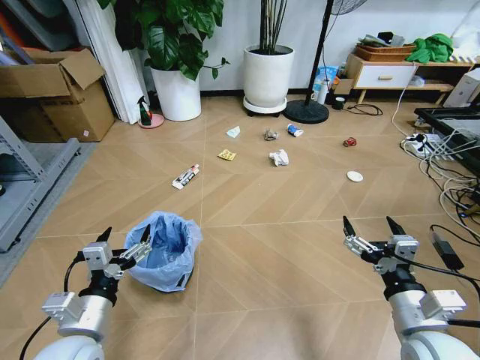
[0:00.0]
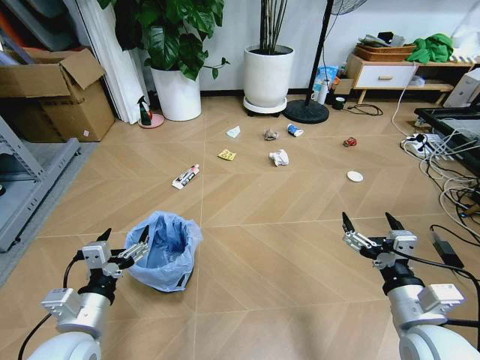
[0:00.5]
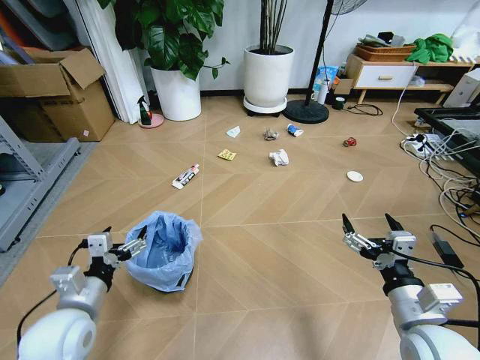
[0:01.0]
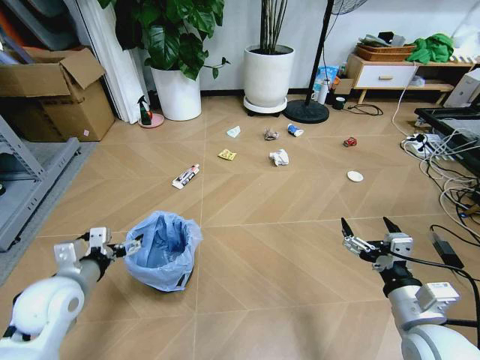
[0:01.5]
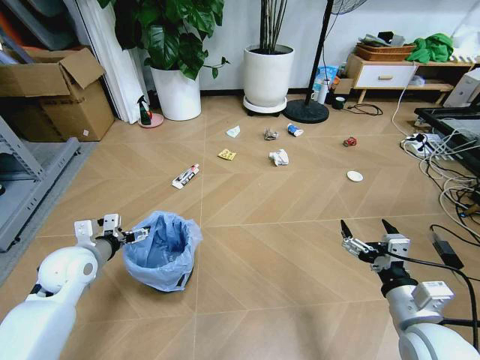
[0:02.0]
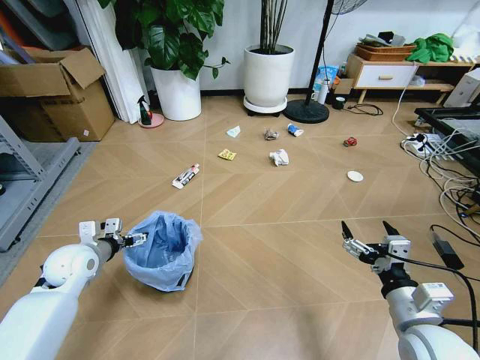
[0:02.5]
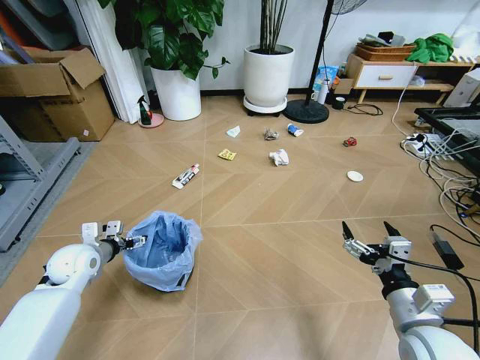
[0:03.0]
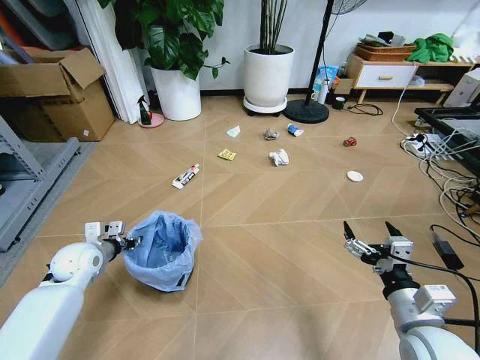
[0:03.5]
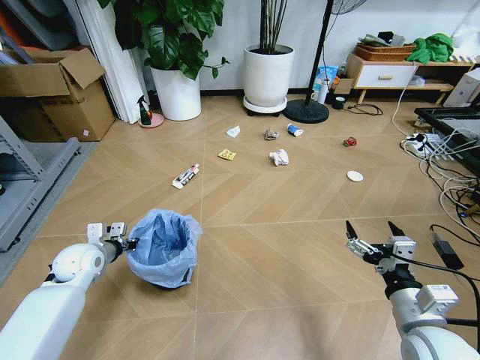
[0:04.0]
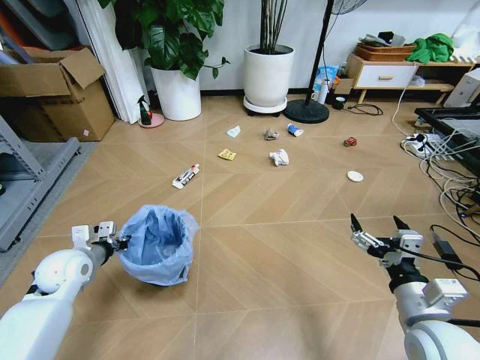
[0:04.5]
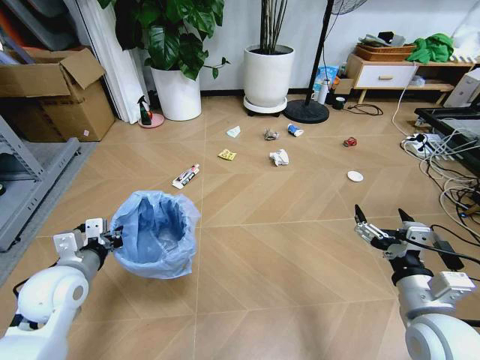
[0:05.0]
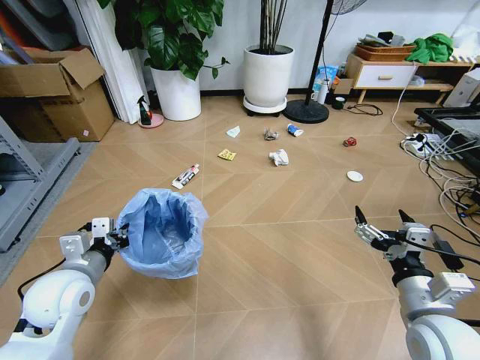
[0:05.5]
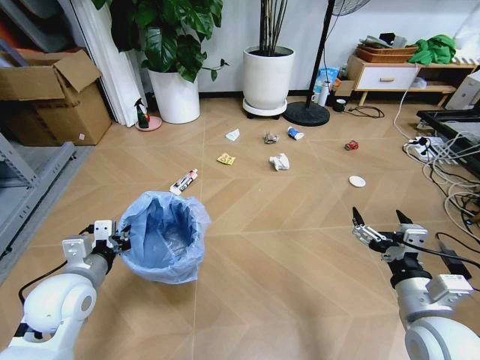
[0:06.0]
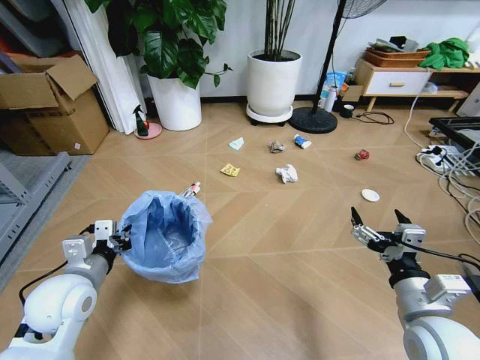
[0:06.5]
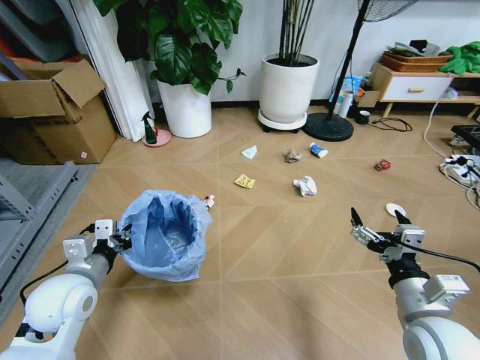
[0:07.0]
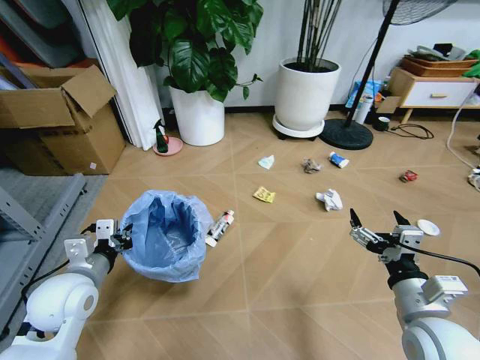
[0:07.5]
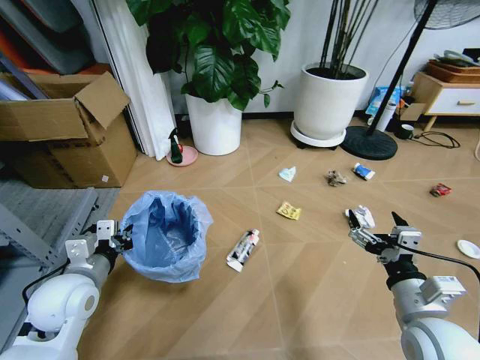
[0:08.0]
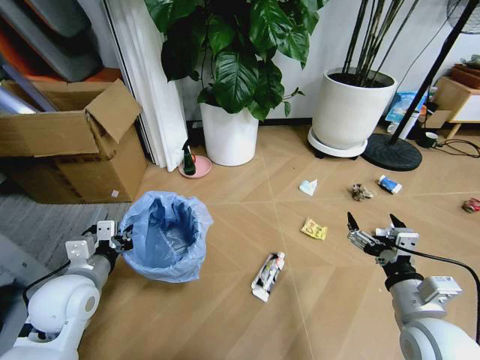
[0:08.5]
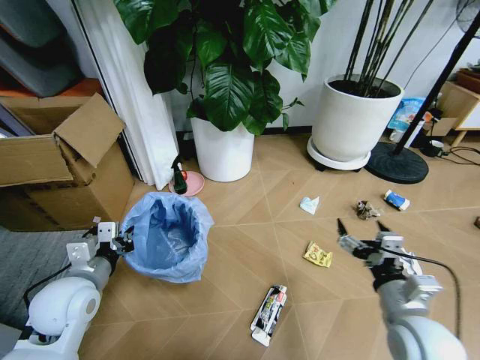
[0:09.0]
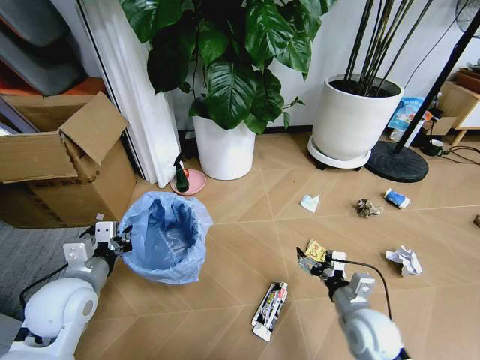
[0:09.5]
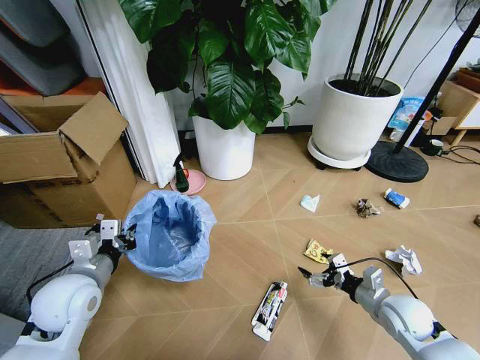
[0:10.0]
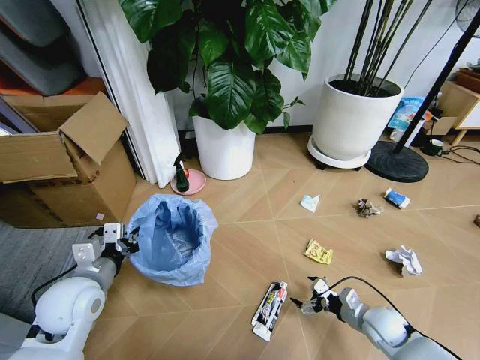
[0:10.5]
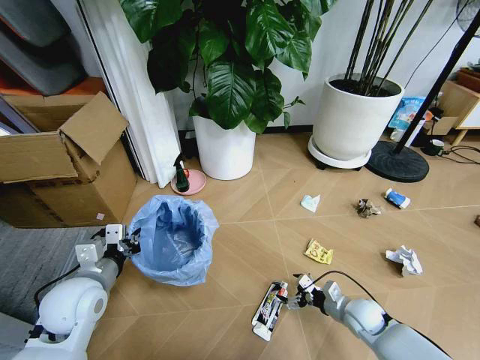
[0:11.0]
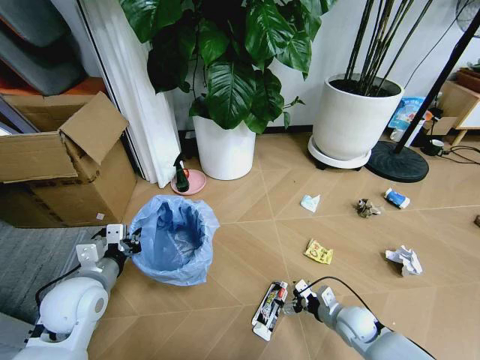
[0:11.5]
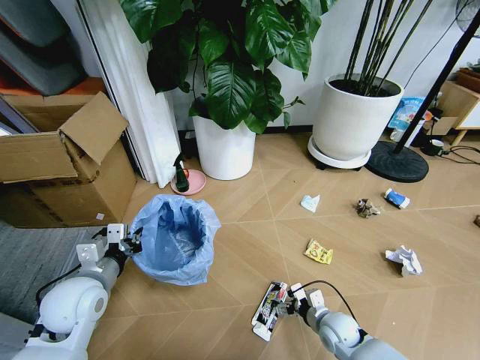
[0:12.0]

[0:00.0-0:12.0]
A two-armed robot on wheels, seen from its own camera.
Task of the whole recording: Pick up the trash bin and place the garbage on the floor into it.
0:02.0 to 0:04.0: The left gripper is displaced downward by roughly 5 cm, and closes its fingers.
0:04.0 to 0:06.0: The left gripper is displaced backward, upward and to the right by some 15 cm.
0:08.0 to 0:10.0: The right gripper goes roughly 15 cm downward, forward and to the right.
0:10.0 to 0:12.0: The right gripper shifts about 15 cm downward and to the left.

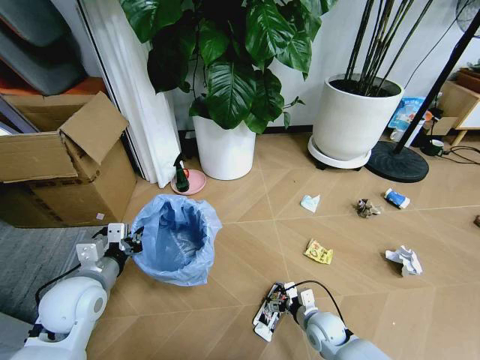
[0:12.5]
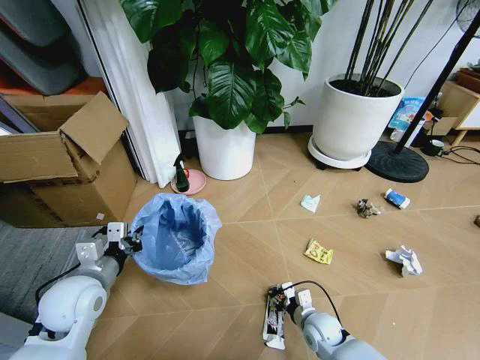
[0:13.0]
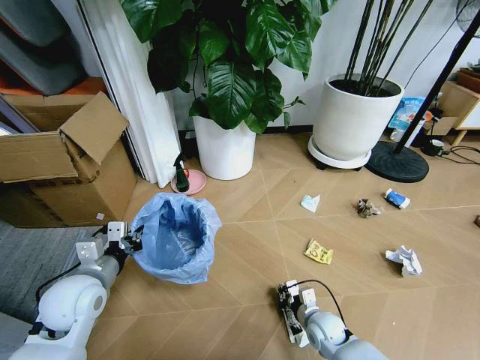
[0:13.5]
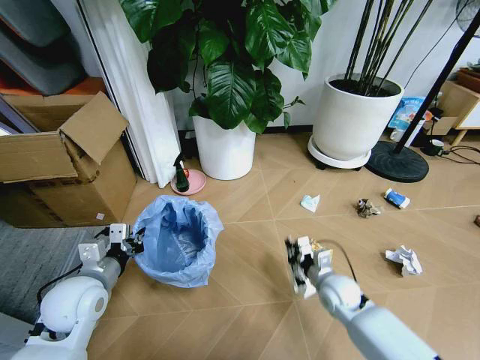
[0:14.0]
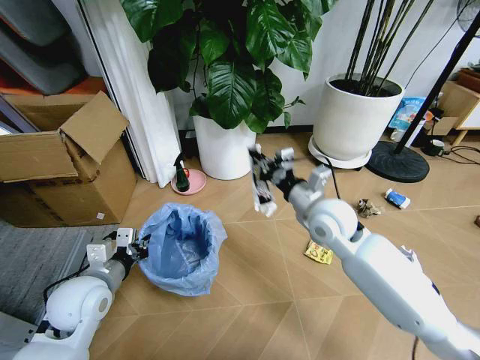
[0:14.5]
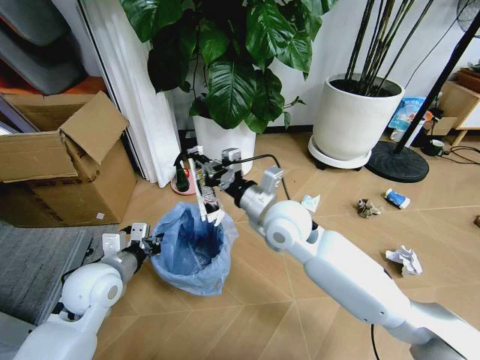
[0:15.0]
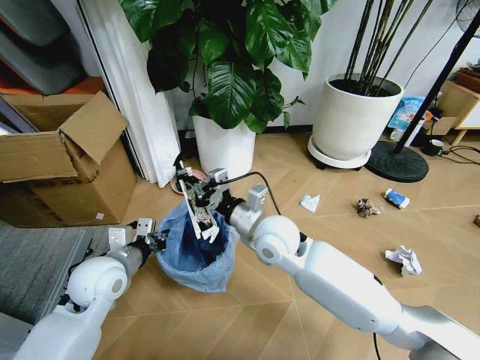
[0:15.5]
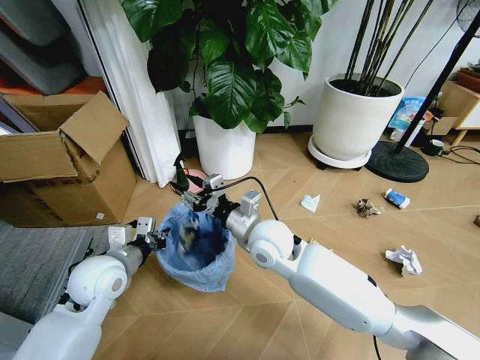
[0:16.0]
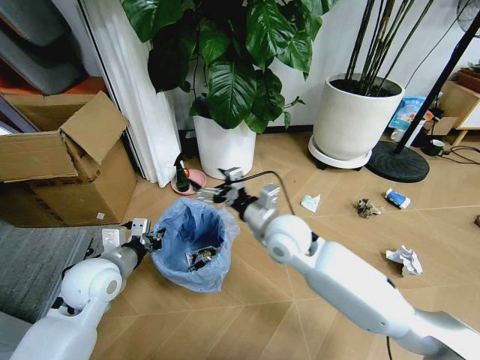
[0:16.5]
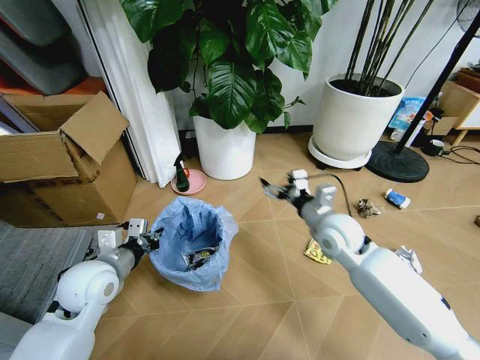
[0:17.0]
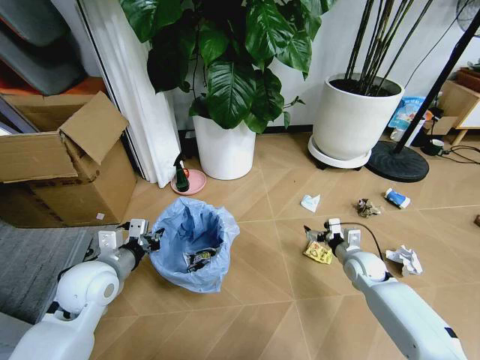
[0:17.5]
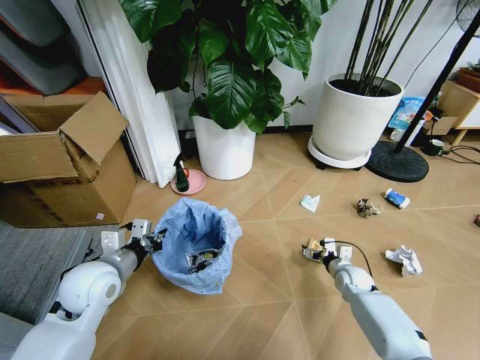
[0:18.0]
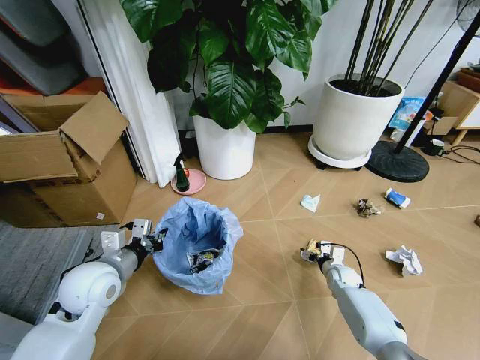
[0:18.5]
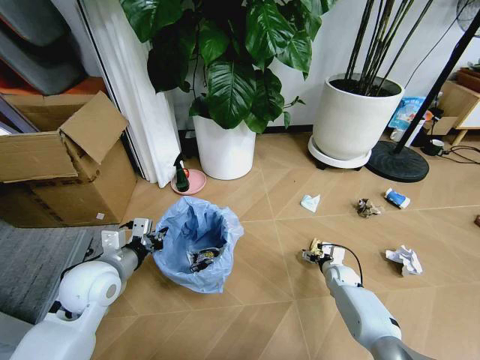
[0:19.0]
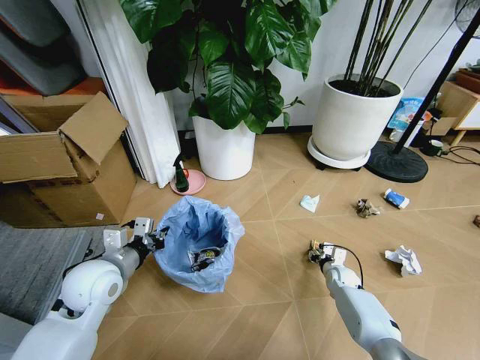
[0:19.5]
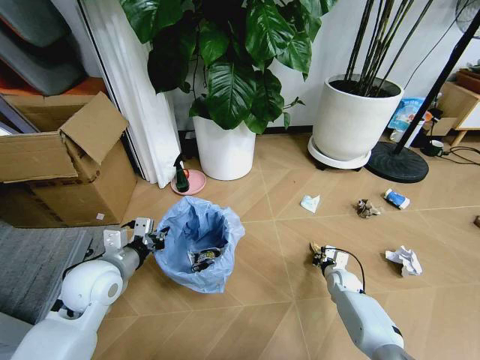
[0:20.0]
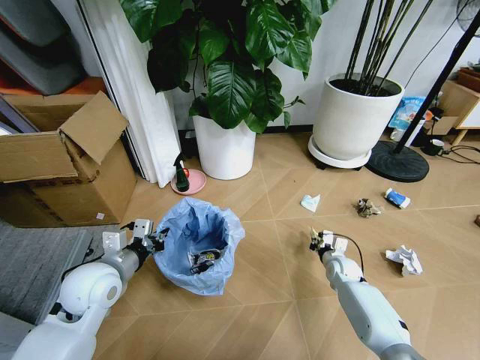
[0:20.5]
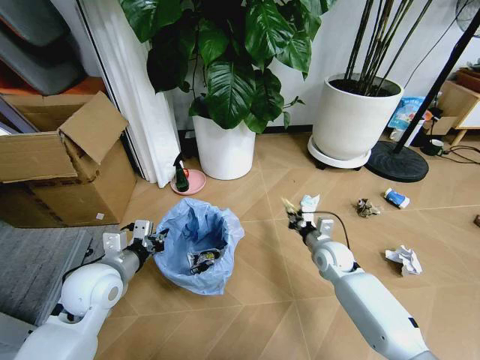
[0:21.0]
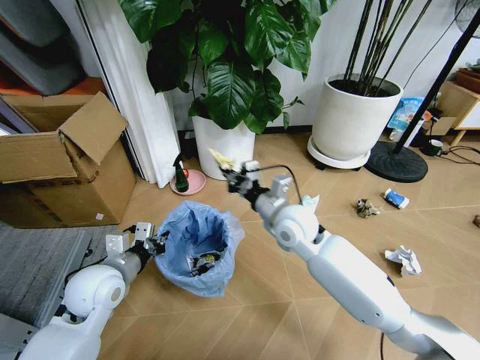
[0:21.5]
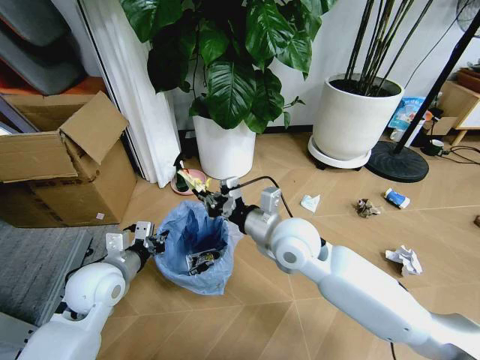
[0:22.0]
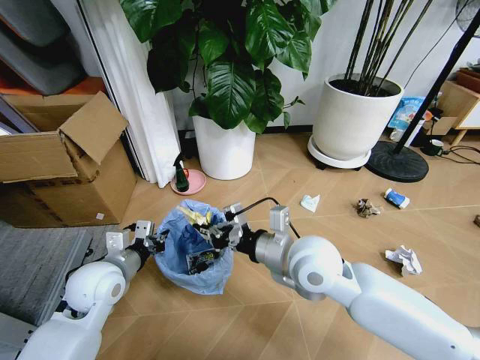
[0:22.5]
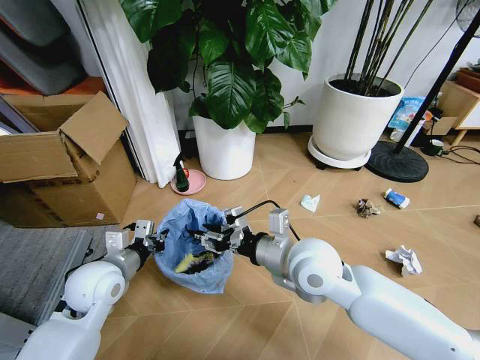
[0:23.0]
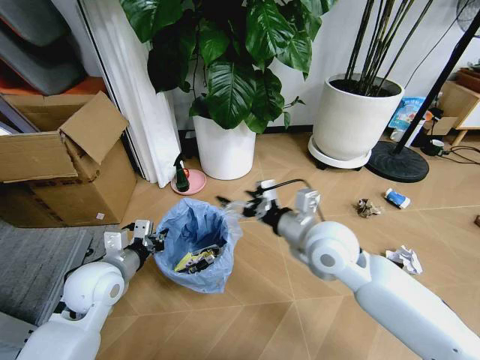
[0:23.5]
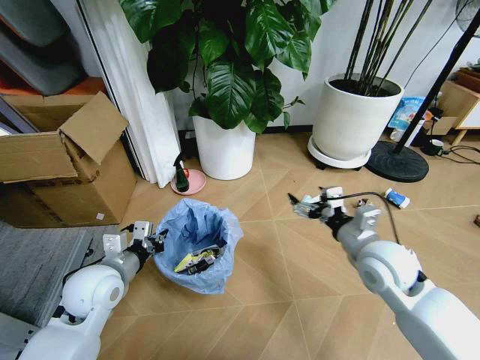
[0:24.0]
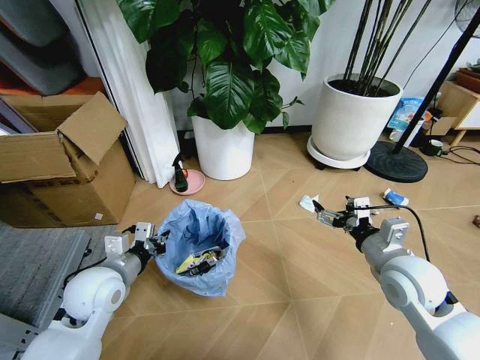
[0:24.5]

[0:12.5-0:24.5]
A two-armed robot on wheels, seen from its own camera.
Task of the whole recording: Pick up the trash bin and place the garbage on the floor into it.
0:12.5 to 0:14.5: The right gripper travels upward and forward by approximately 35 cm, and closes its fingers.
0:14.5 to 0:16.5: The right gripper travels to the left by approximately 10 cm, and opens its fingers.
0:16.5 to 0:18.5: The right gripper heads downward and to the right, covering roughly 40 cm.
0:18.5 to 0:20.5: The right gripper closes up.
0:20.5 to 0:22.5: The right gripper heads upward and to the left, covering approximately 35 cm.
0:22.5 to 0:24.5: The right gripper goes about 20 cm to the right, and opens up.

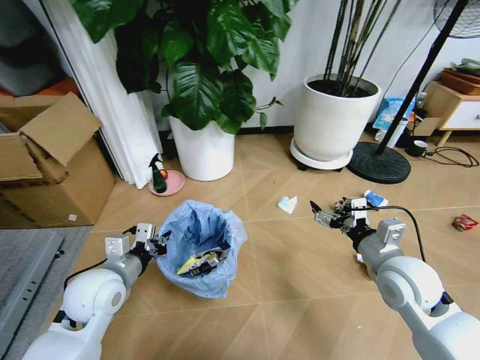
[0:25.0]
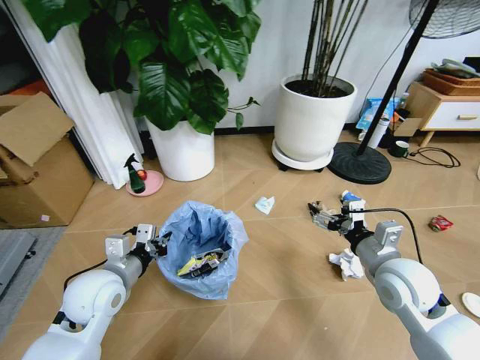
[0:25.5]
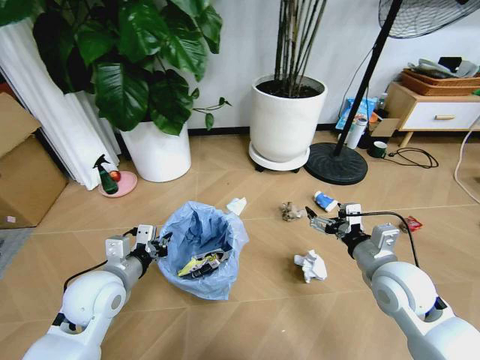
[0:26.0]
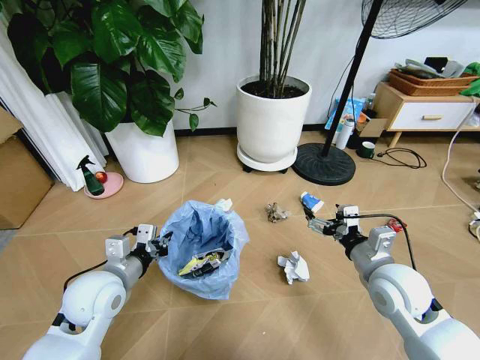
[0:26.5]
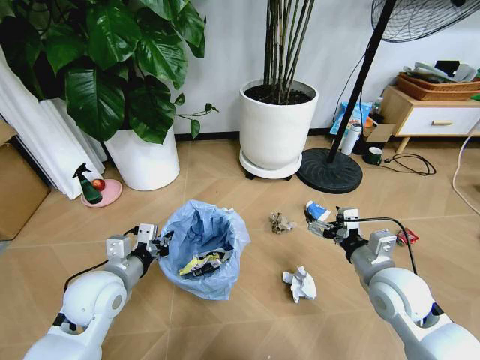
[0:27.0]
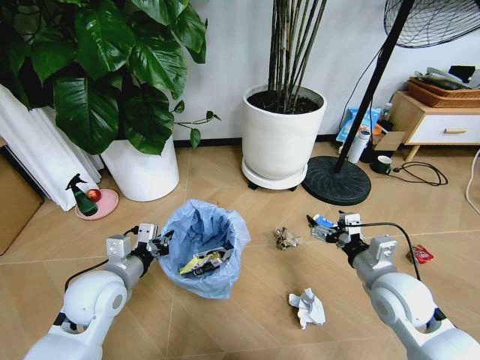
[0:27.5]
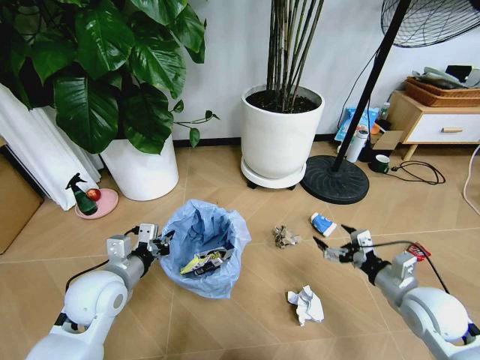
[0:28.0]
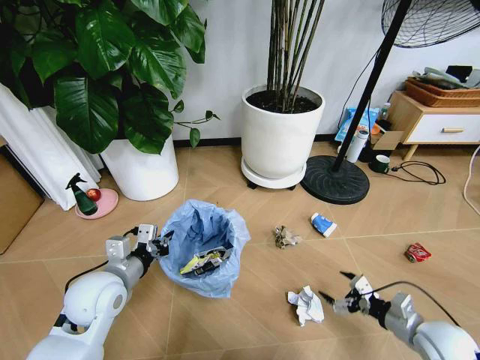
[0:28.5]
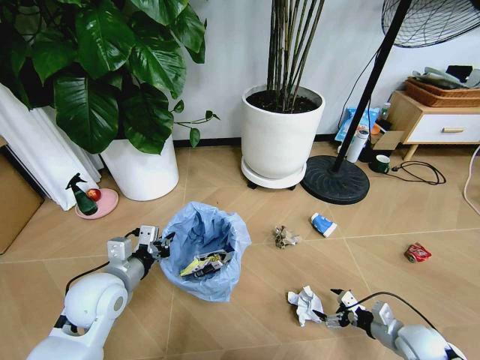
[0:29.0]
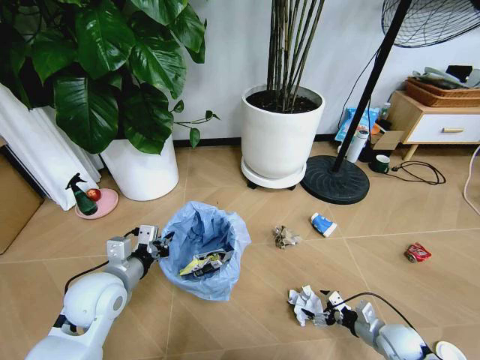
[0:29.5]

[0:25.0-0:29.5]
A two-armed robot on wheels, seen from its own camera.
Task of the whole recording: Pick up the trash bin and place the garbage on the floor into it.
0:27.0 to 0:29.5: The right gripper moves downward and to the right, approximately 25 cm.
